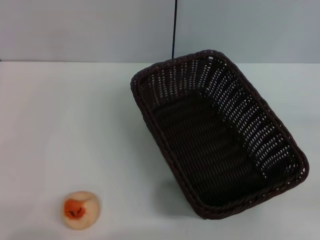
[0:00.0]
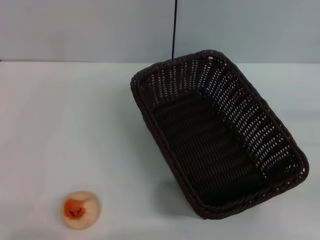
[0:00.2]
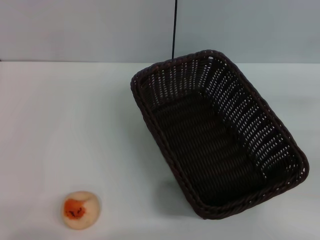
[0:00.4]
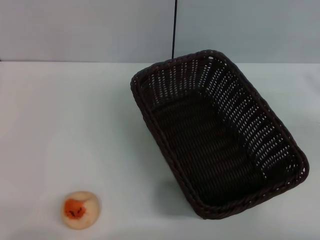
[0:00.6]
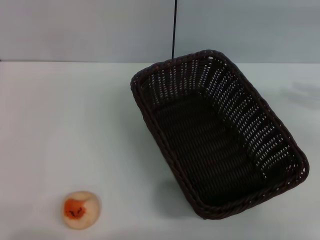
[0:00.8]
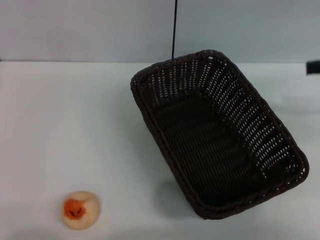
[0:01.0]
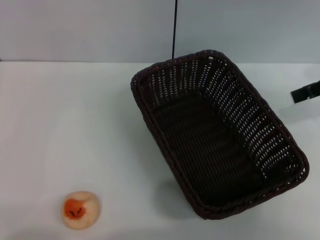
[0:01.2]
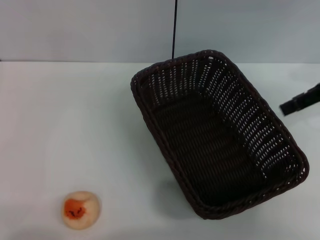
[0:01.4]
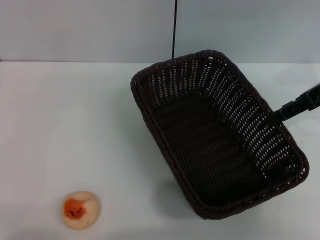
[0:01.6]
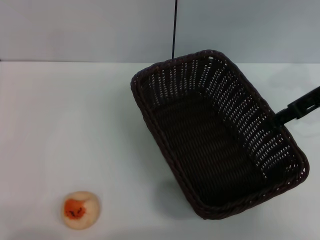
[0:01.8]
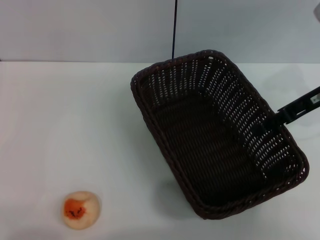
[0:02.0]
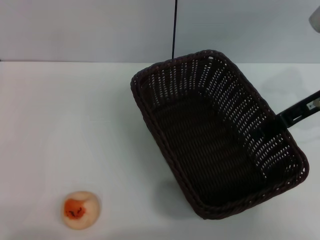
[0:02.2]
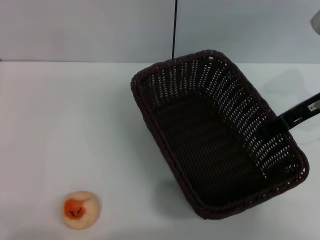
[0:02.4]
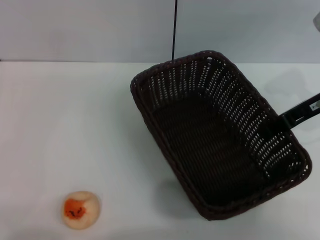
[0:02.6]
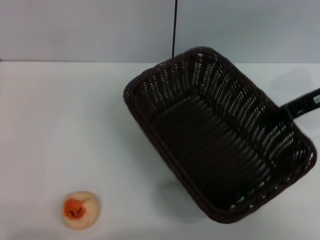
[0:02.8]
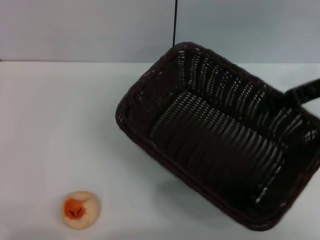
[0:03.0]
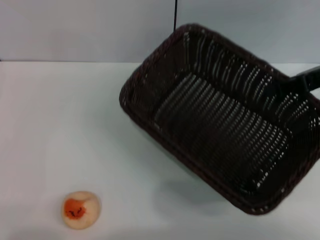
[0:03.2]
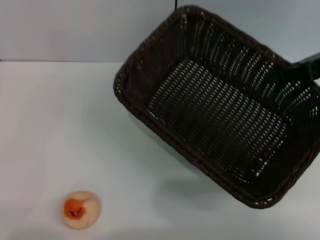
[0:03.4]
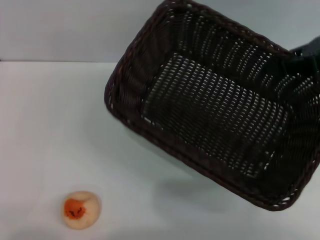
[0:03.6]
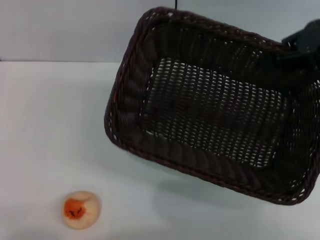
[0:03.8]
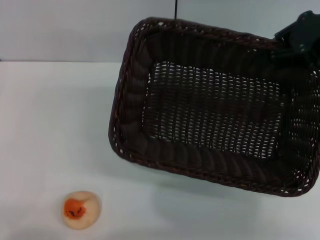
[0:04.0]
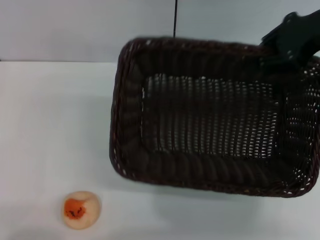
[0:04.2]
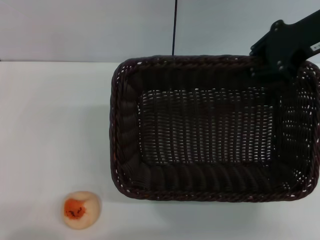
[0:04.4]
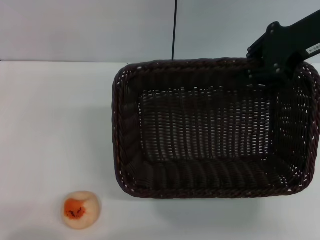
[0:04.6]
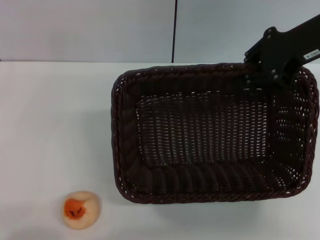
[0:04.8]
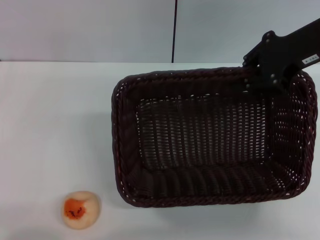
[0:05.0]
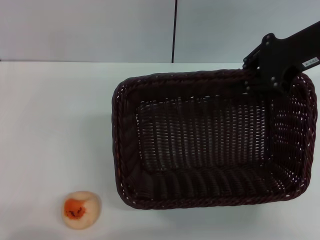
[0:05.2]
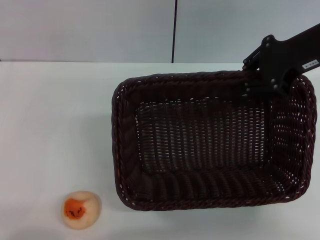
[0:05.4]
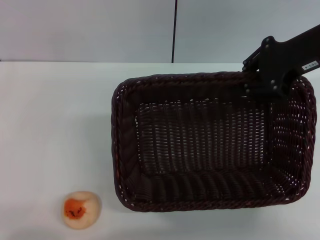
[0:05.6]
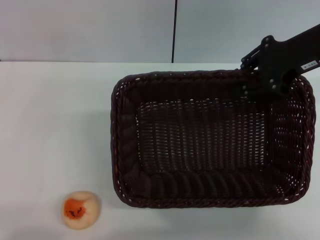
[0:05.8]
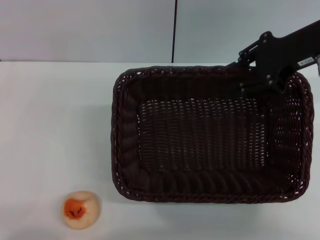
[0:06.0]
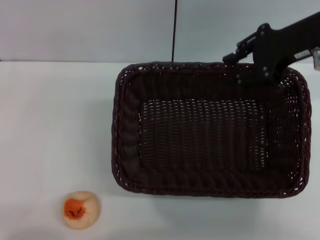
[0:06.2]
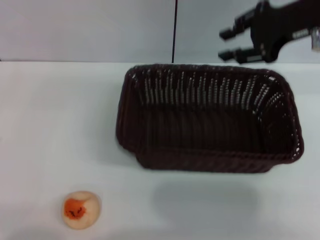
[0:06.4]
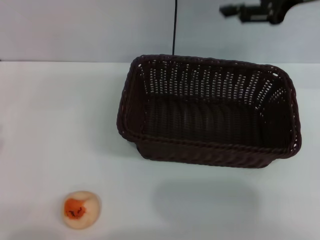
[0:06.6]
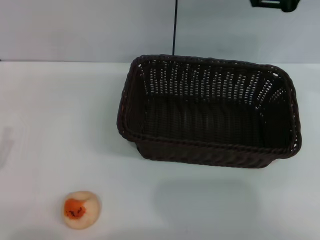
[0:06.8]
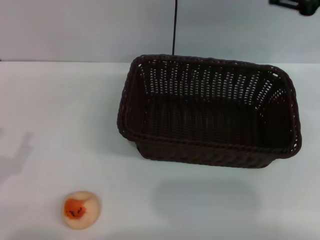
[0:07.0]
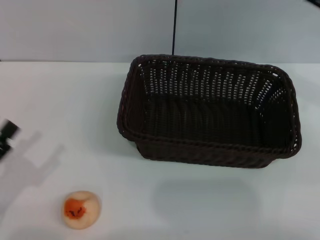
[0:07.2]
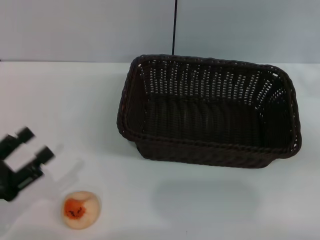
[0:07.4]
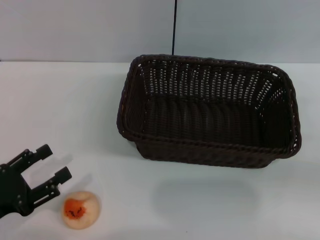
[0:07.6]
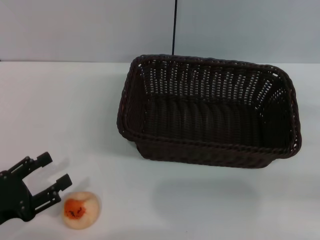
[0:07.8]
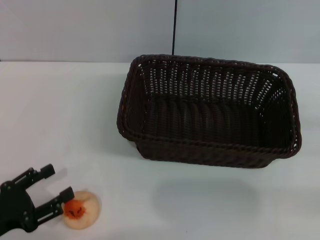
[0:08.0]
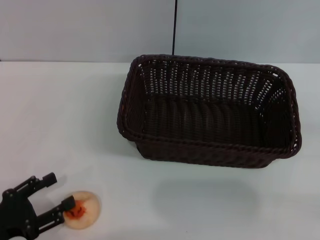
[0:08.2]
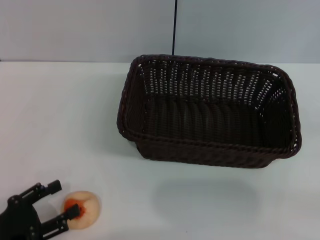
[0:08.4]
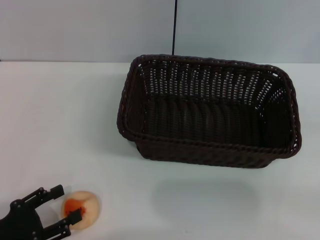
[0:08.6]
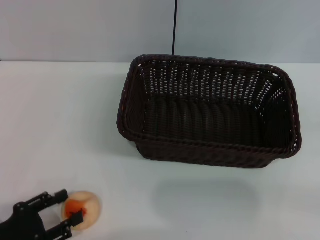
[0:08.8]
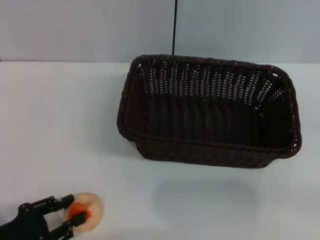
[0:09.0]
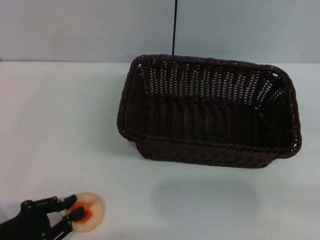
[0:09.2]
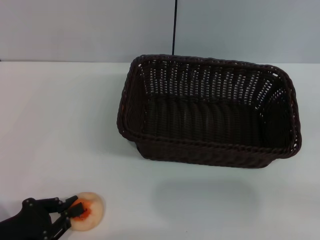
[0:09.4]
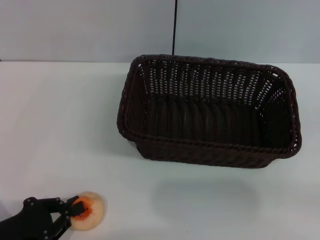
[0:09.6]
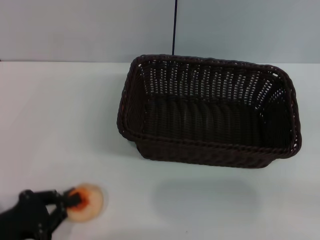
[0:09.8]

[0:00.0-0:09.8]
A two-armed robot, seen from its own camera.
Step, 0:00.0 to 0:06.4: Move the basket to the center of view with the right gripper.
0:00.0 to 0:01.4: The right gripper moves upward, forward and to the left, roughly 25 cm, and opens up.
0:01.4 to 0:02.8: The right gripper shifts by approximately 5 cm, and closes.
0:02.8 to 0:04.2: The right gripper shifts about 10 cm upward.
0:04.2 to 0:05.6: The grippers make only small movements.
0:05.6 to 0:07.0: The right gripper heads to the right, covering some 5 cm, and opens.
0:07.0 to 0:08.4: The right gripper is displaced downward, to the right and backward by approximately 30 cm.
0:08.4 to 0:09.8: The left gripper closes up.

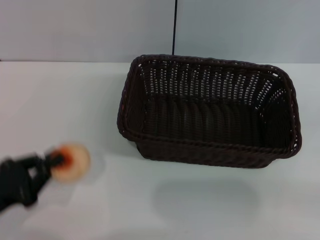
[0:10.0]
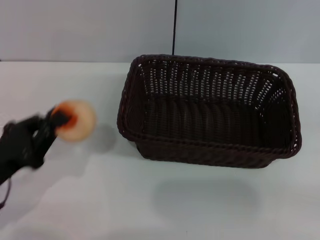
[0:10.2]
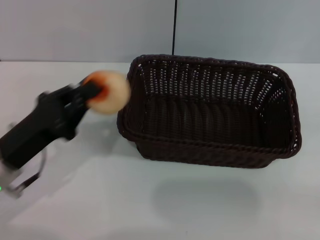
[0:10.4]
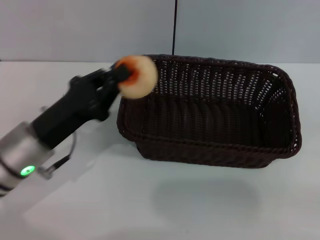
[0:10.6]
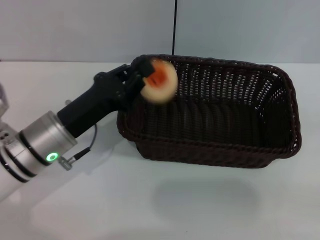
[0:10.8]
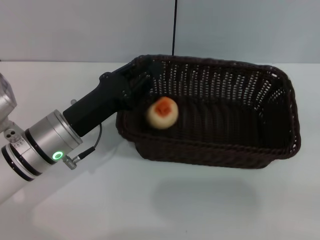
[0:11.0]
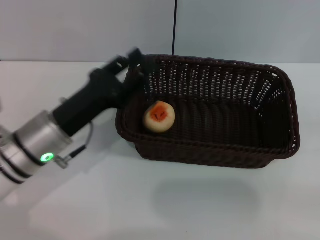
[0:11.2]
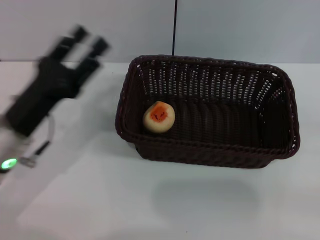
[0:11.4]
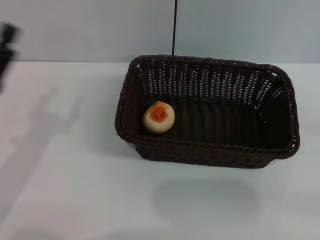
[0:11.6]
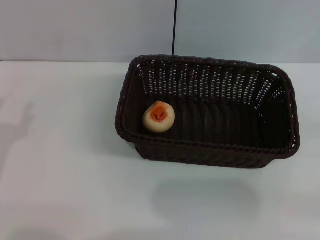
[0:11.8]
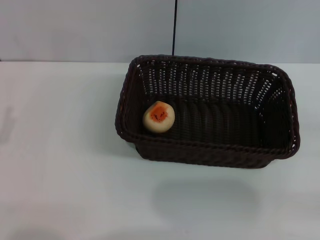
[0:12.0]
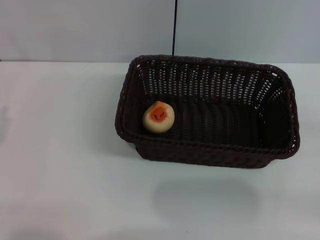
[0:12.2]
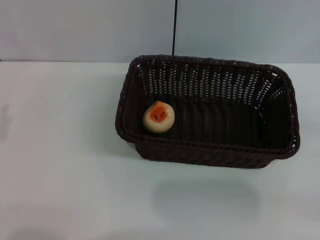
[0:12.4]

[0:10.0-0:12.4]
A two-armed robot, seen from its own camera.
Step, 0:10.2 to 0:11.2: Place the egg yolk pastry into the basket with the left gripper.
0:10.0 to 0:11.2: The left gripper travels forward and to the right by approximately 15 cm.
0:11.2 to 0:12.4: The left gripper heads to the left and backward, covering approximately 15 cm, and opens up.

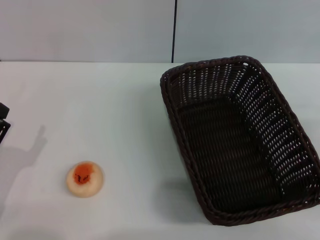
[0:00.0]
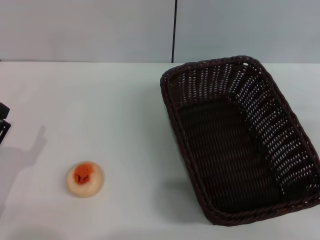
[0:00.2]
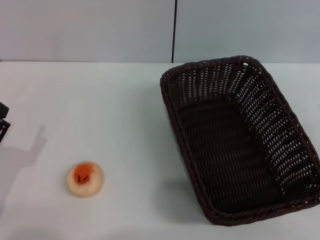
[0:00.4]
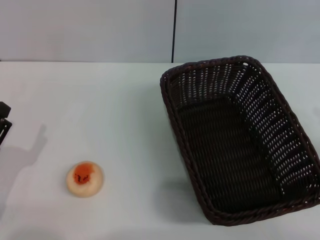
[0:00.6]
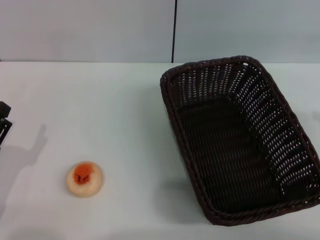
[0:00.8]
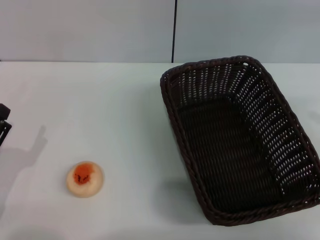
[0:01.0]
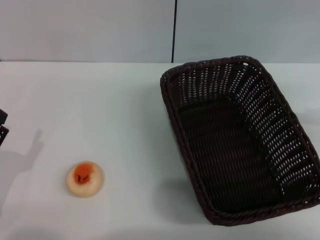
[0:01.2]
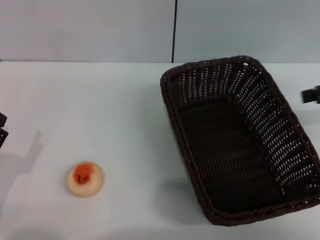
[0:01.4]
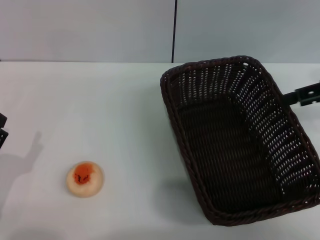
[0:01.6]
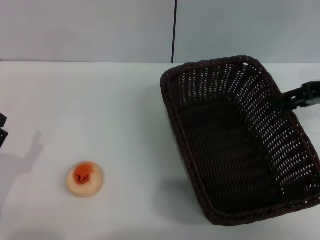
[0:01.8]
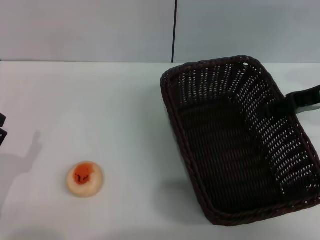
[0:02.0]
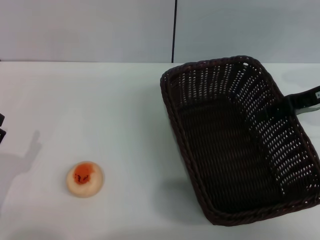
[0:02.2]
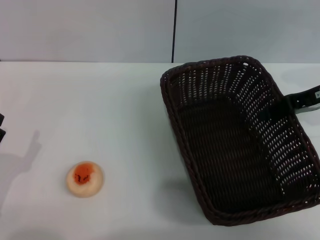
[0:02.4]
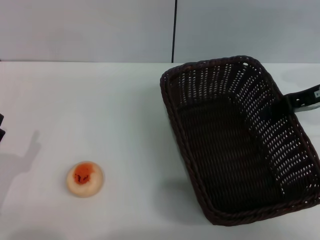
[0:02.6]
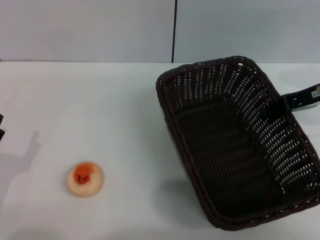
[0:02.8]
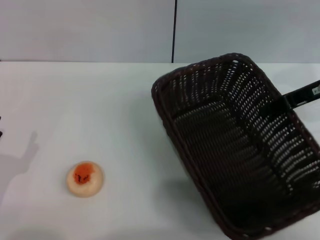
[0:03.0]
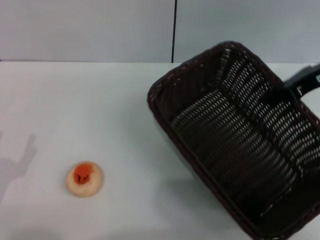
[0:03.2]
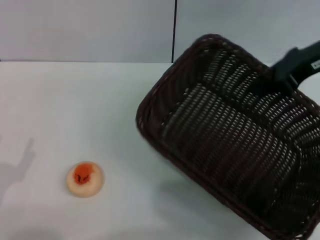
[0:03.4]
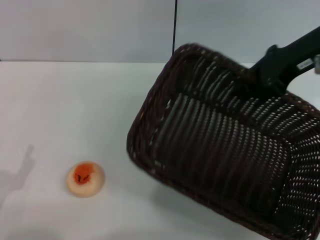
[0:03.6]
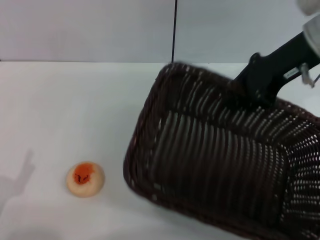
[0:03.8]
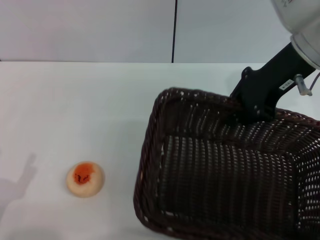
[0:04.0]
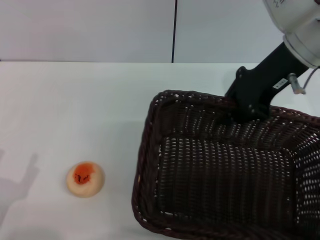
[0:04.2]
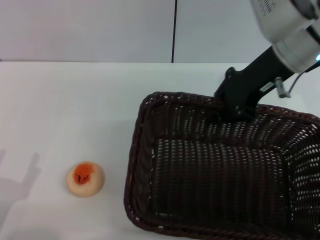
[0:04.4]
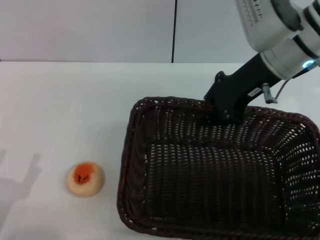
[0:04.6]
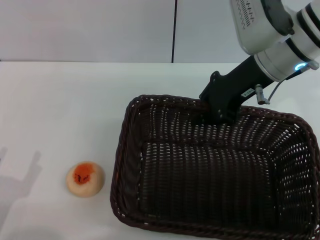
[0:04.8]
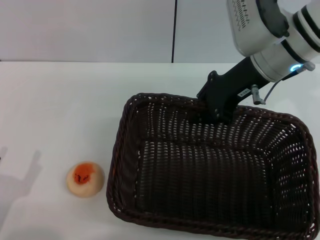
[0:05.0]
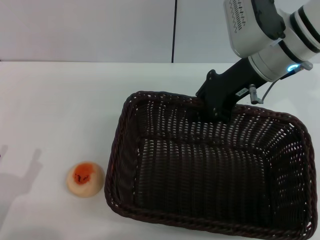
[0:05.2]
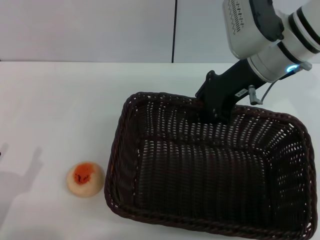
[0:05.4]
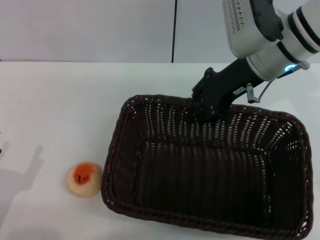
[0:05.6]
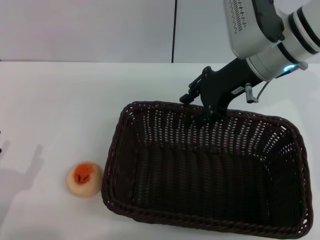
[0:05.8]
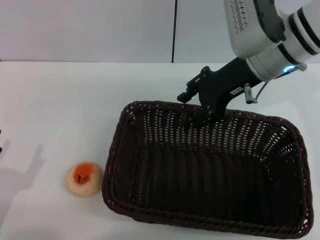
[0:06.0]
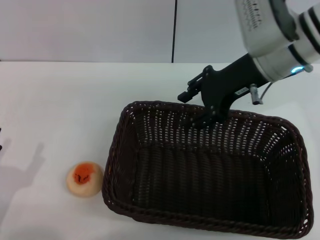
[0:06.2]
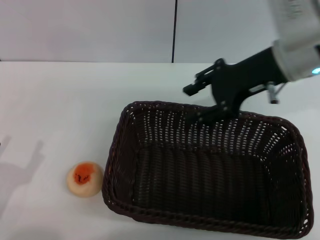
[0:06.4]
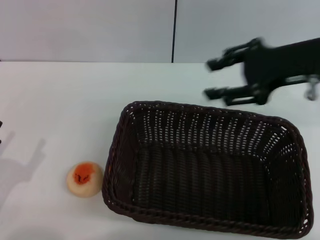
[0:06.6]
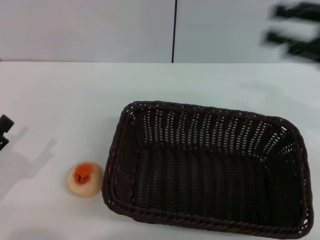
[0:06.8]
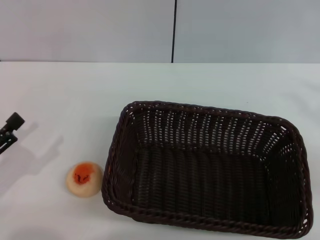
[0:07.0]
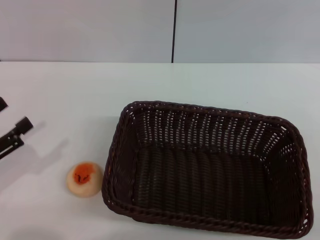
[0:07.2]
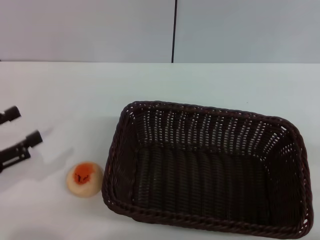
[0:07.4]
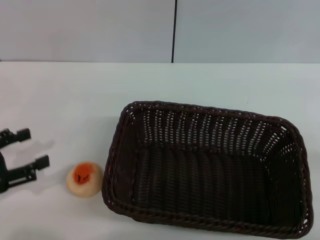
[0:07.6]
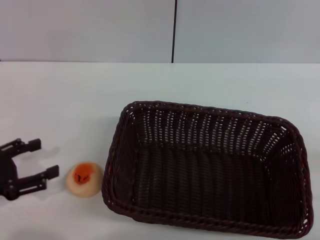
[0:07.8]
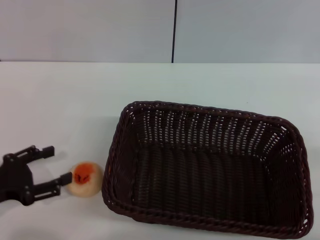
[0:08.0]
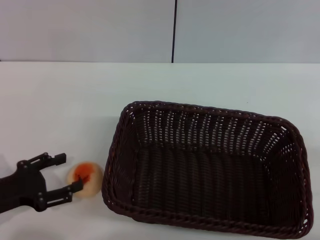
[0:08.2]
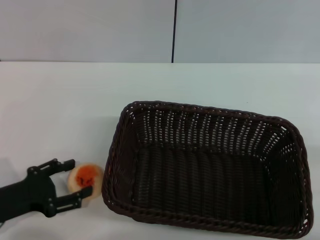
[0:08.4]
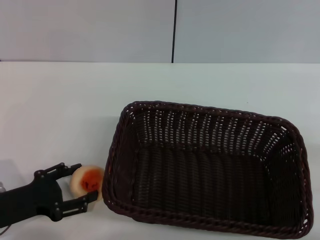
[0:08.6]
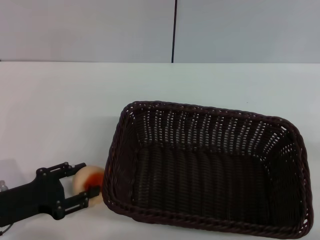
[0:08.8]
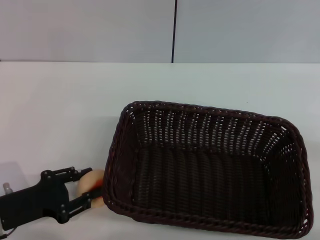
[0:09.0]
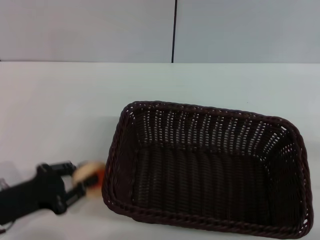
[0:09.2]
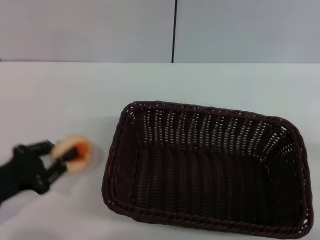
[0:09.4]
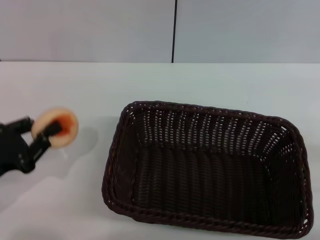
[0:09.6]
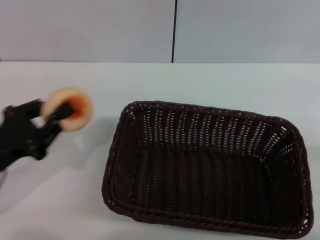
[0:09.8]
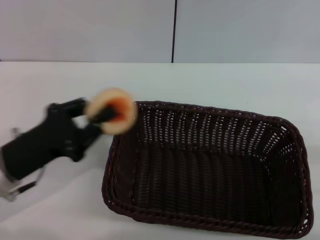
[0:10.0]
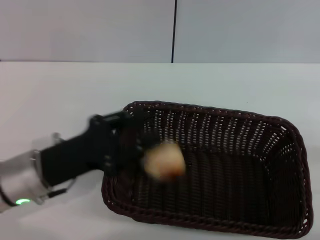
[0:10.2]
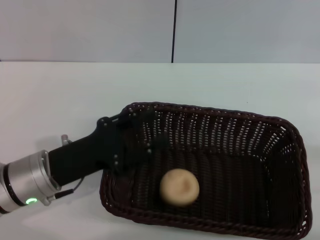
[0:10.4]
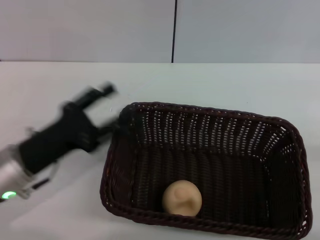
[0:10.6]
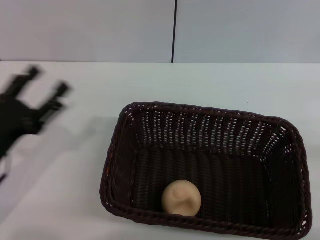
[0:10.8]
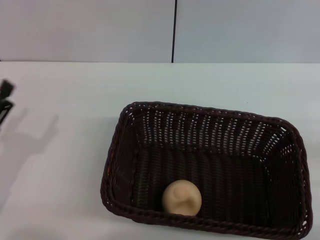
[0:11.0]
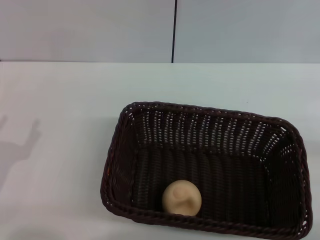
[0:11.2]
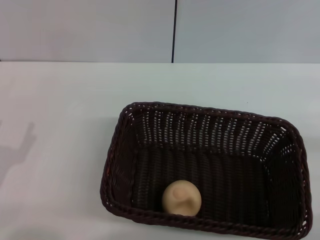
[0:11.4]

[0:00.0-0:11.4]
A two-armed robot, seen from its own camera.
Step, 0:00.0 to 0:06.2: Move the basket to the center of view with the right gripper.
Step, 0:06.4 to 0:09.6: Pick up the egg yolk pastry with the left gripper.
Step, 0:09.8 to 0:10.6: Place the egg yolk pastry into the basket with the left gripper.
0:00.0 to 0:01.4: The right gripper shifts roughly 15 cm upward, forward and to the left.
0:01.4 to 0:02.8: The right gripper moves to the left and downward, approximately 10 cm, and closes up.
0:02.8 to 0:04.2: The left gripper ends up some 5 cm from where it was. The right gripper goes about 10 cm to the left and upward.
0:05.6 to 0:07.2: The right gripper is displaced to the right and backward by roughly 35 cm, and opens, while the left gripper shifts approximately 10 cm forward and to the left.
0:07.2 to 0:08.6: The left gripper travels downward by about 5 cm.
0:08.6 to 0:10.0: The left gripper ends up about 10 cm from where it was, and closes up.
0:10.0 to 0:11.4: The left gripper goes roughly 10 cm backward and to the left, and opens up.
